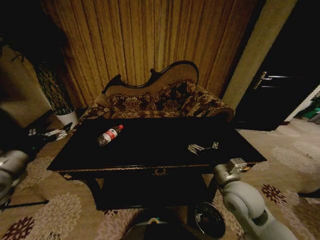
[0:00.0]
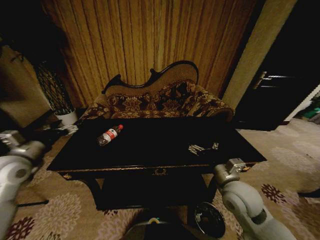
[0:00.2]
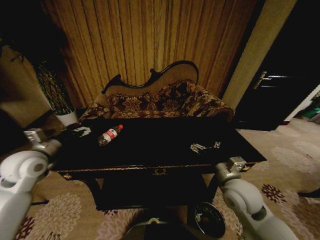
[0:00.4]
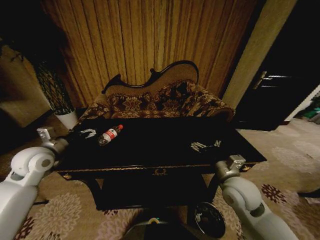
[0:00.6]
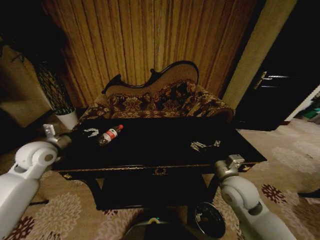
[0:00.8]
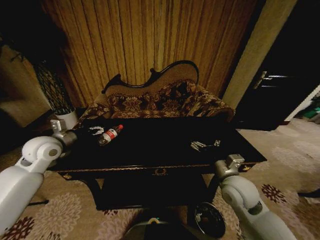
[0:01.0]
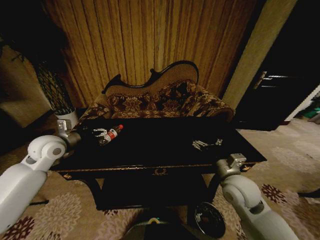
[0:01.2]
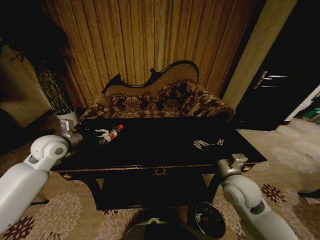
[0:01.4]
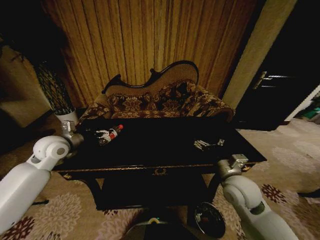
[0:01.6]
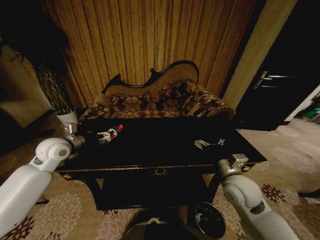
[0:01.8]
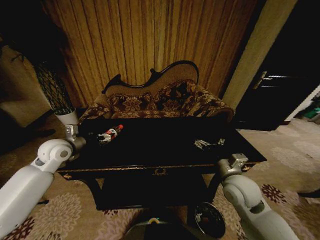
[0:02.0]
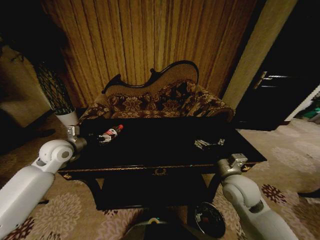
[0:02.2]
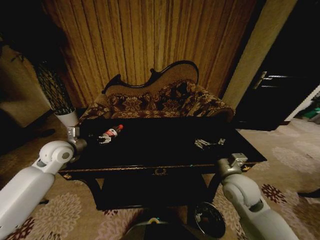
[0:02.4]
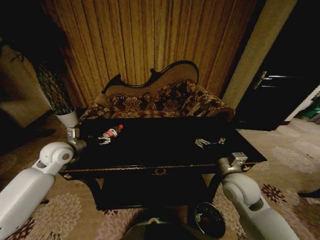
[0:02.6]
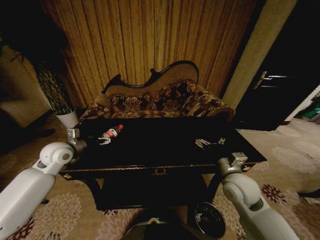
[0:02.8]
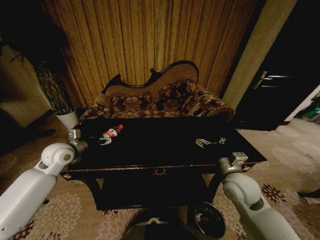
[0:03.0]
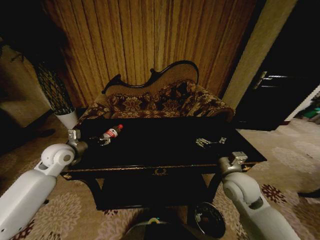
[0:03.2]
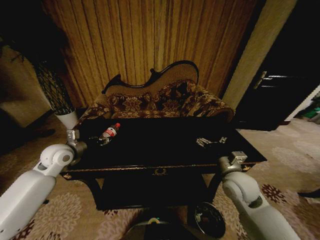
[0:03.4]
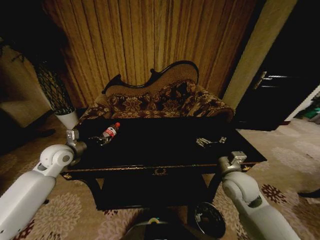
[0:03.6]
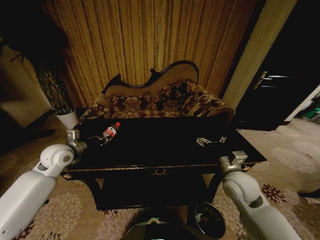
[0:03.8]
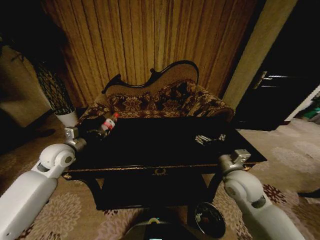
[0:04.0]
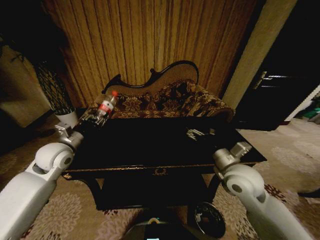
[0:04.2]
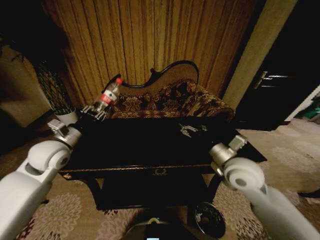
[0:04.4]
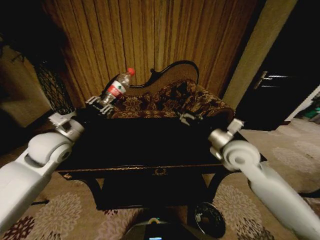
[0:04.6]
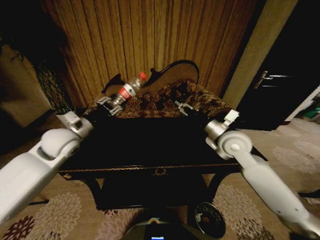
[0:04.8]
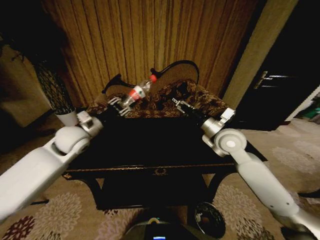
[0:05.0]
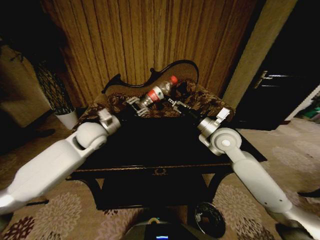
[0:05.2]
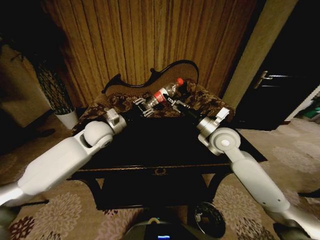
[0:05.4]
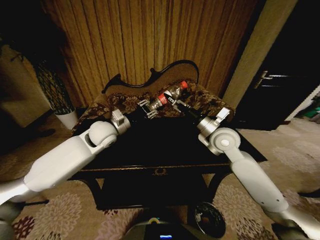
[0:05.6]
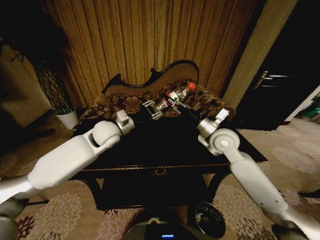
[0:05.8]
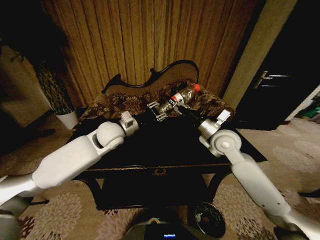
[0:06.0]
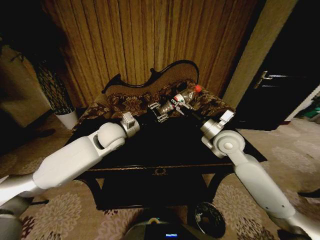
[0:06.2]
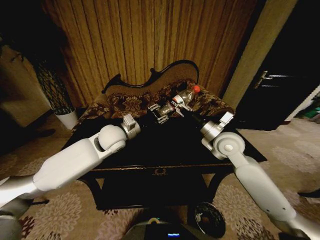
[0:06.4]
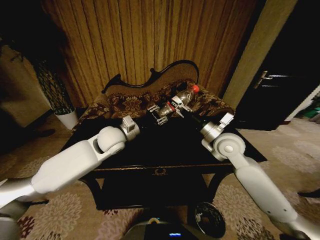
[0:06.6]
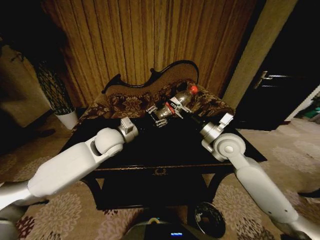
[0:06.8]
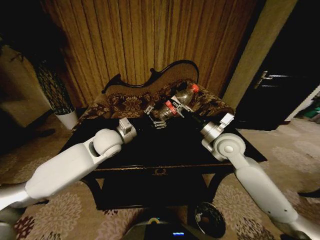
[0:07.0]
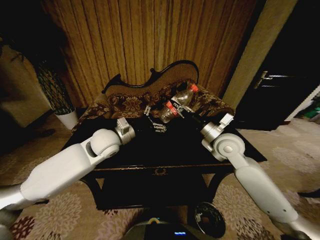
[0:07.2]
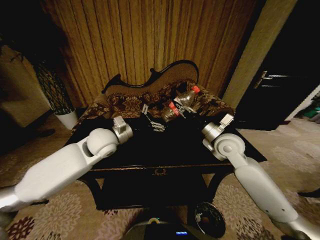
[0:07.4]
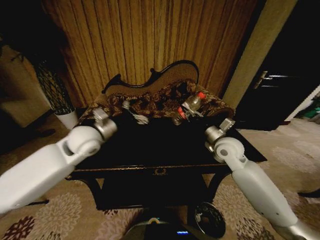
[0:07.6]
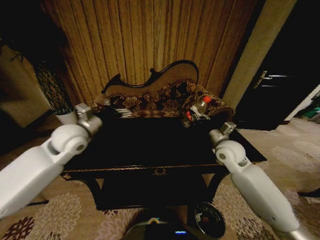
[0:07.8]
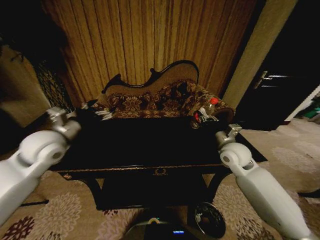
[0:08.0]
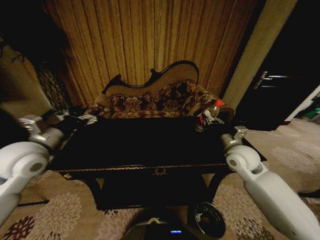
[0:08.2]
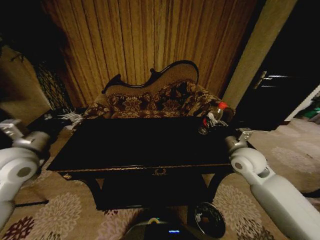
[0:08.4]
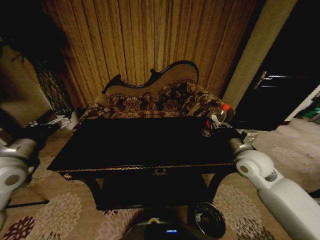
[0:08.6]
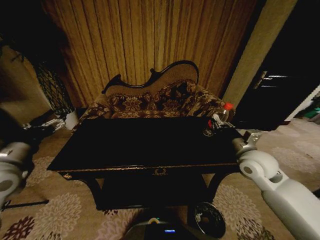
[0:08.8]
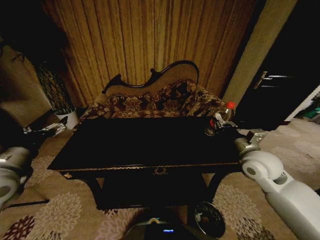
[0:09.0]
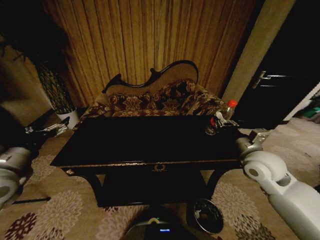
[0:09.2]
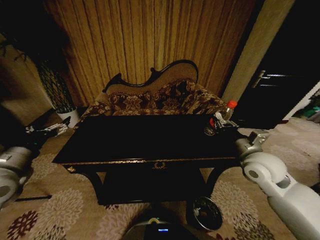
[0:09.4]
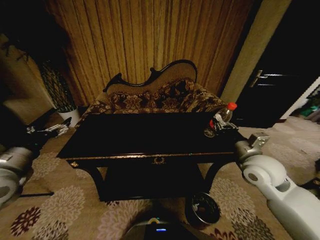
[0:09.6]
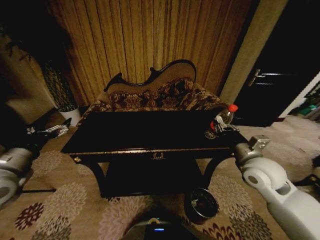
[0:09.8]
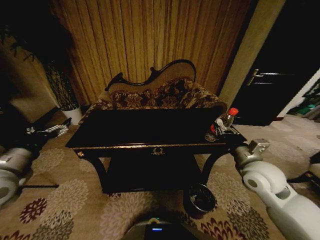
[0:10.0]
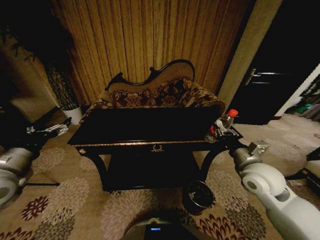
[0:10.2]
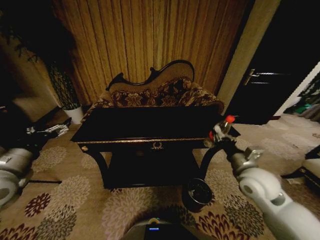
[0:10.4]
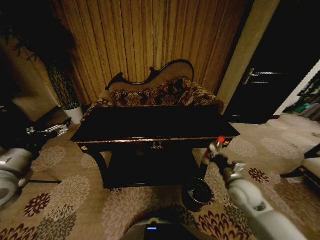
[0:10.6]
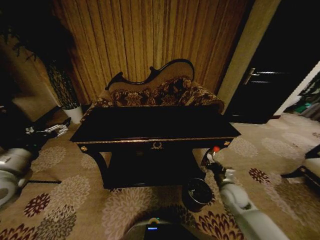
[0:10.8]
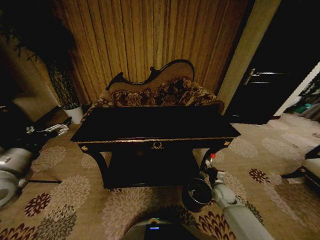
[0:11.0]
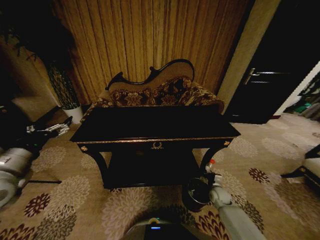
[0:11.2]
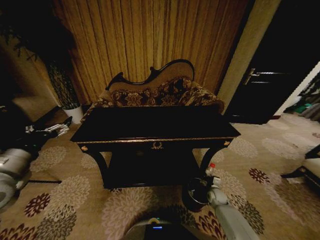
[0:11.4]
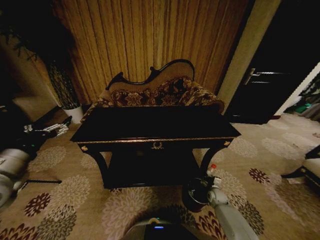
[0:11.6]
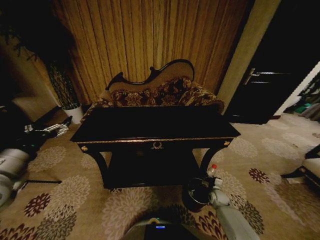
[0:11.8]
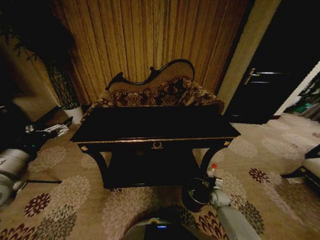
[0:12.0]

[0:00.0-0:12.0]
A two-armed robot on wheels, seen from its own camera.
Task of the whole recording: Move to the front of the table and place the trash on the table into the trash bin.
0:00.0 to 0:01.6: The left gripper is displaced forward and to the right by about 15 cm.
0:01.6 to 0:03.0: The grippers move only a little.
0:03.0 to 0:04.4: Both grippers move upward, roughly 5 cm. The left gripper closes.
0:04.4 to 0:06.0: The left gripper goes about 20 cm to the right and forward; the right gripper moves forward, approximately 10 cm.
0:06.0 to 0:07.6: The left gripper heads to the left, covering about 5 cm, and opens its fingers. Meanwhile the right gripper closes its fingers.
0:07.6 to 0:09.0: The left gripper moves to the left and backward, approximately 20 cm, while the right gripper moves backward and to the right, about 10 cm.
0:09.0 to 0:10.4: The right gripper shifts by about 5 cm.
0:10.4 to 0:12.0: The right gripper travels downward by roughly 35 cm.

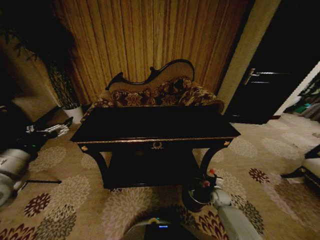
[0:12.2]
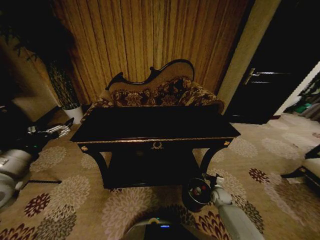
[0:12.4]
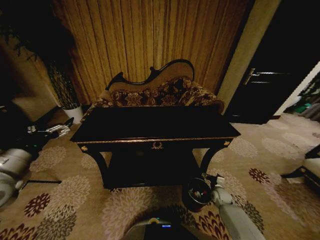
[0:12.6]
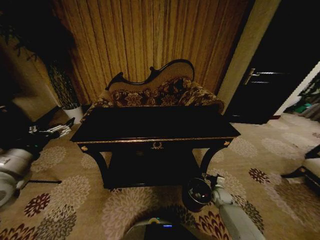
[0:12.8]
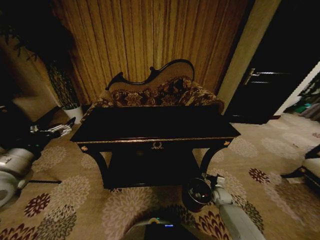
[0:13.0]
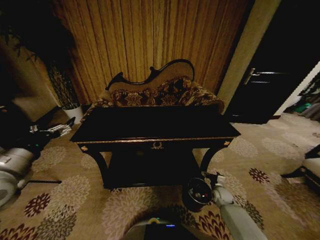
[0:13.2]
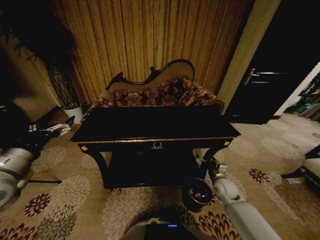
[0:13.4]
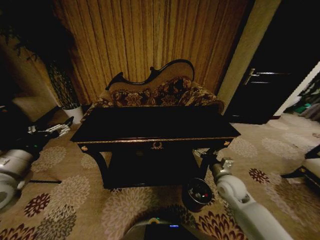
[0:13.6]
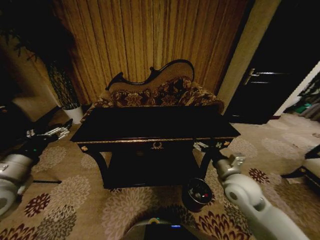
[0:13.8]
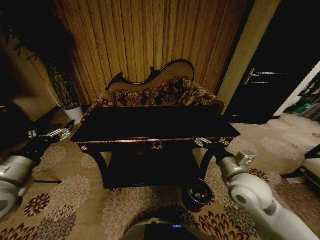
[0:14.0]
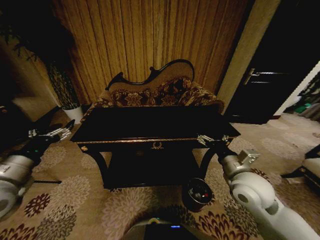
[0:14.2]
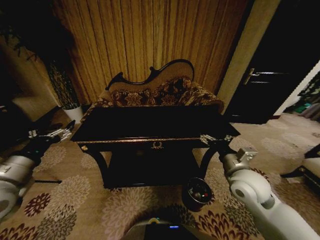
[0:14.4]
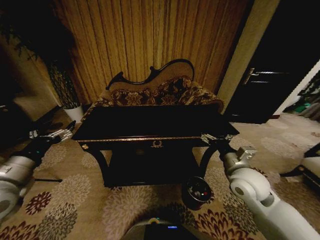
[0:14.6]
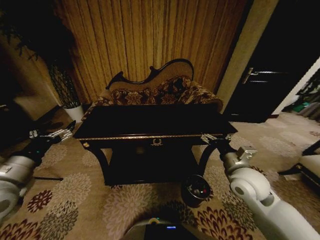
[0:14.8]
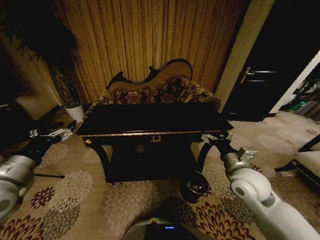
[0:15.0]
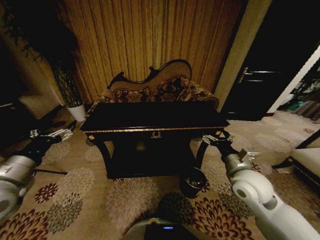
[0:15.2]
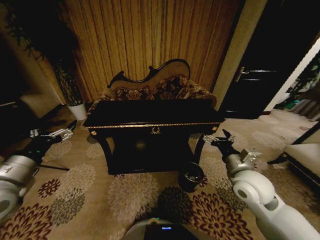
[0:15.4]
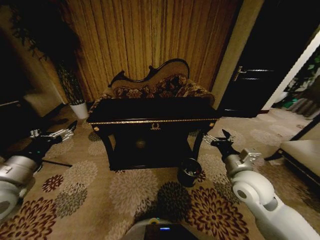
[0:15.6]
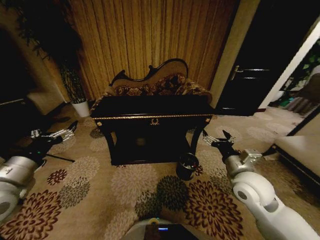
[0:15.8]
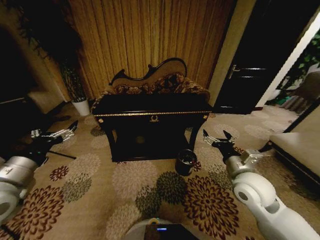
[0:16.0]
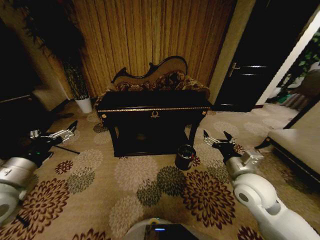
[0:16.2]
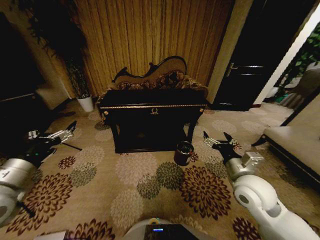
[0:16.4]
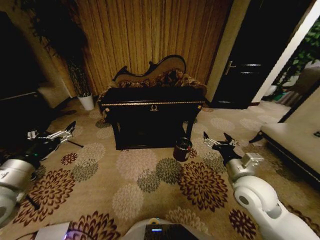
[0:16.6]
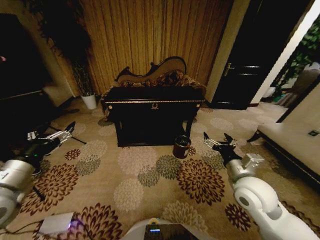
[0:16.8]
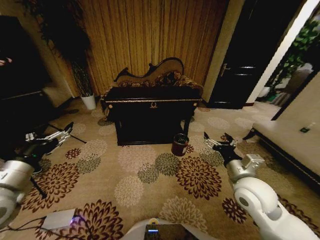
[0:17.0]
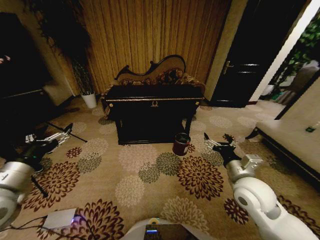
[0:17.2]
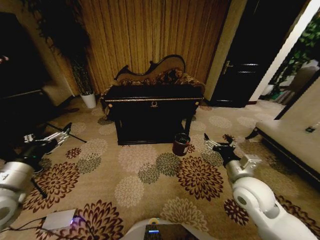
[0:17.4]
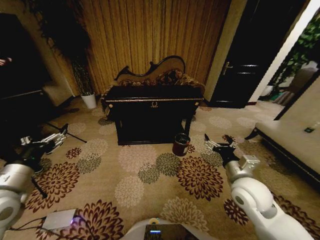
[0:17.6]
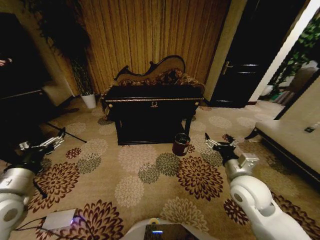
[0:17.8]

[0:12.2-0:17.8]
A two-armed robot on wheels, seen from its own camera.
Task of the whole recording: Move to the front of the table and place the trash on the table into the trash bin.
0:12.2 to 0:13.6: The right gripper shifts about 25 cm upward.
0:13.6 to 0:15.0: The right gripper shifts approximately 10 cm upward.
